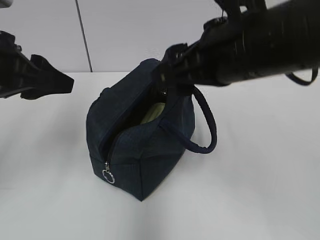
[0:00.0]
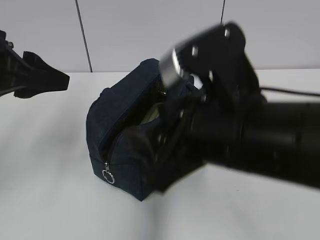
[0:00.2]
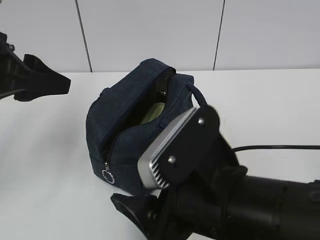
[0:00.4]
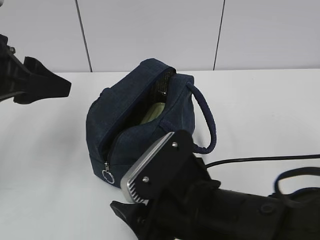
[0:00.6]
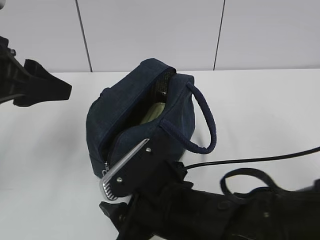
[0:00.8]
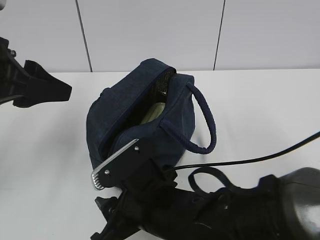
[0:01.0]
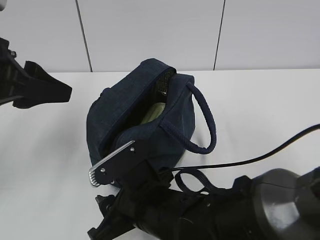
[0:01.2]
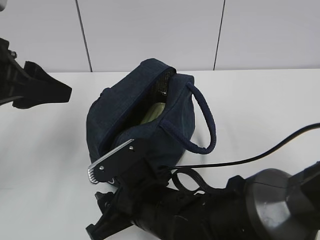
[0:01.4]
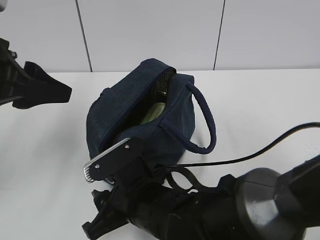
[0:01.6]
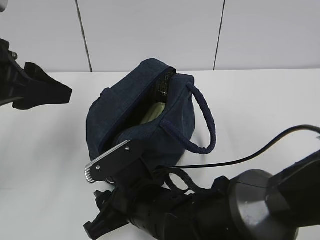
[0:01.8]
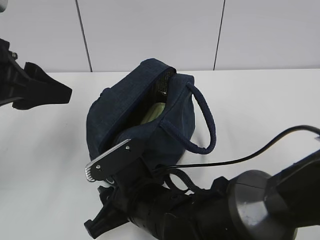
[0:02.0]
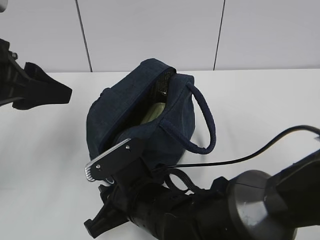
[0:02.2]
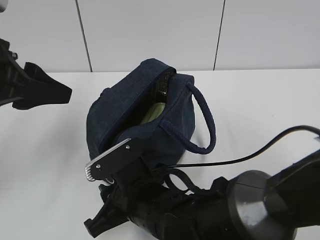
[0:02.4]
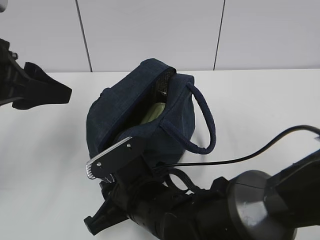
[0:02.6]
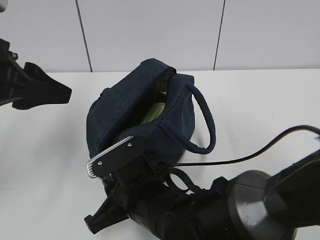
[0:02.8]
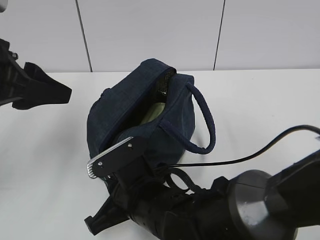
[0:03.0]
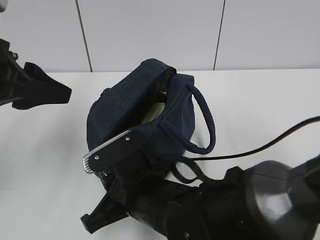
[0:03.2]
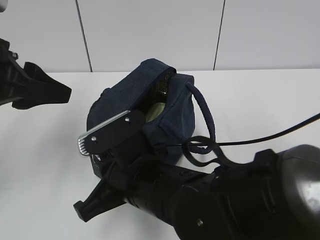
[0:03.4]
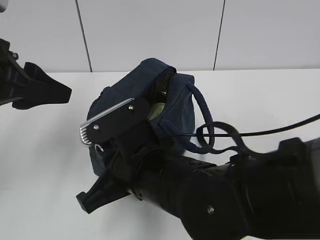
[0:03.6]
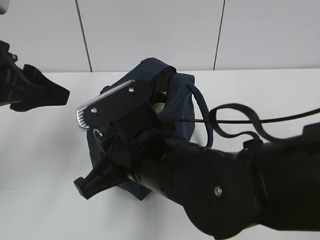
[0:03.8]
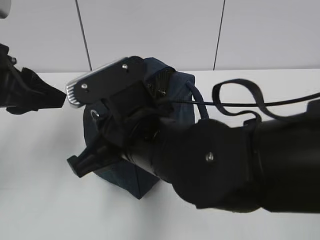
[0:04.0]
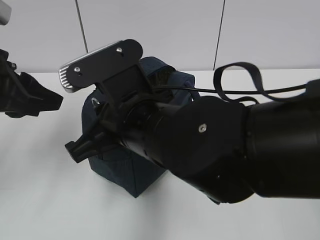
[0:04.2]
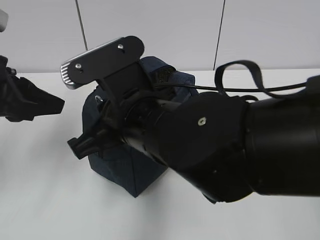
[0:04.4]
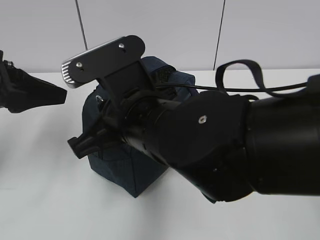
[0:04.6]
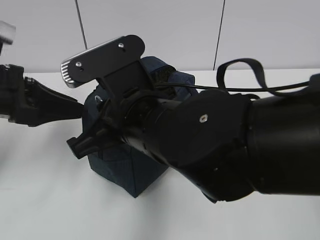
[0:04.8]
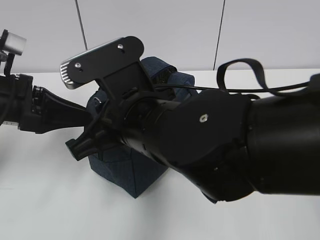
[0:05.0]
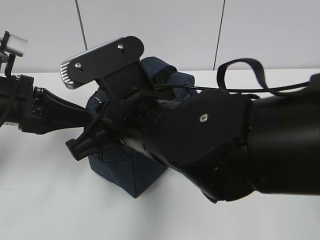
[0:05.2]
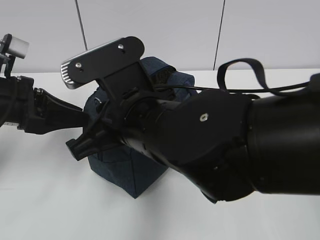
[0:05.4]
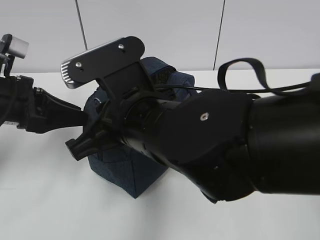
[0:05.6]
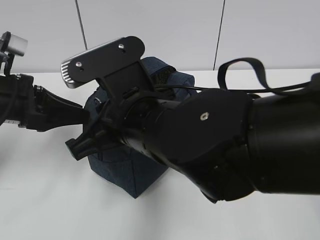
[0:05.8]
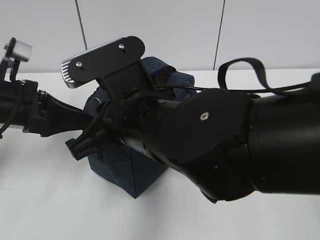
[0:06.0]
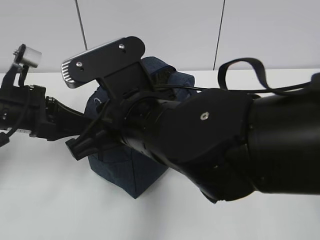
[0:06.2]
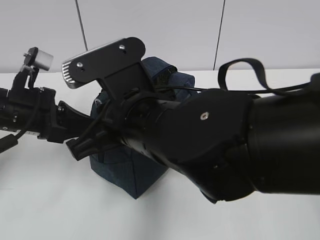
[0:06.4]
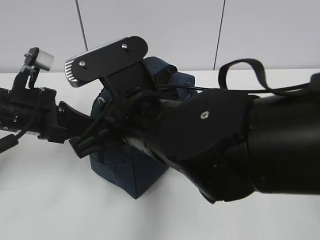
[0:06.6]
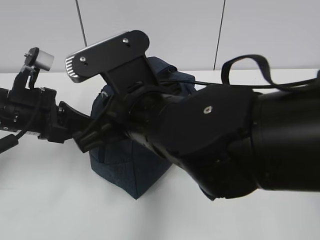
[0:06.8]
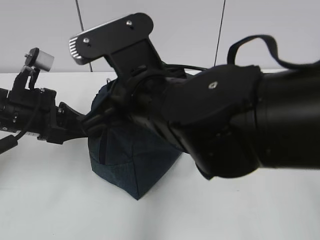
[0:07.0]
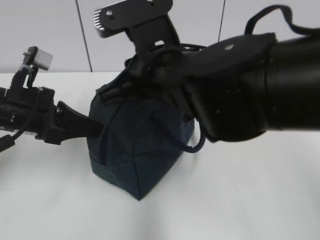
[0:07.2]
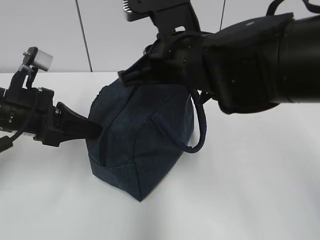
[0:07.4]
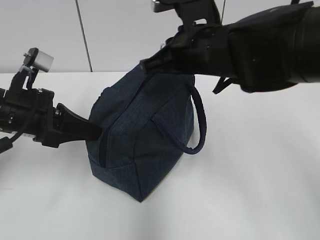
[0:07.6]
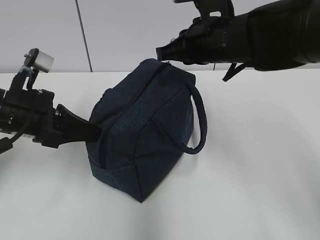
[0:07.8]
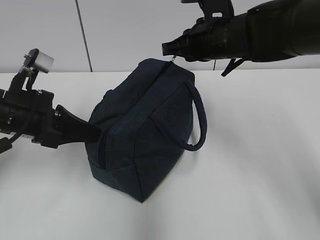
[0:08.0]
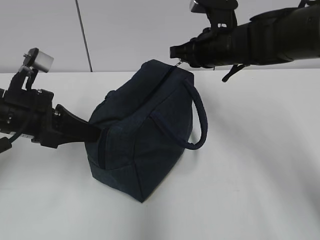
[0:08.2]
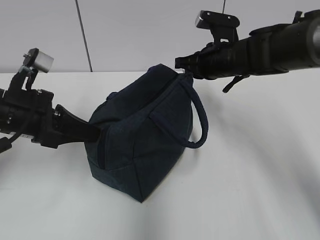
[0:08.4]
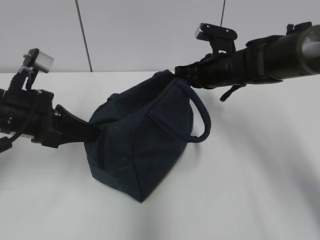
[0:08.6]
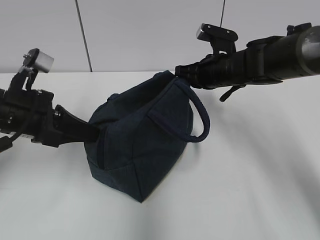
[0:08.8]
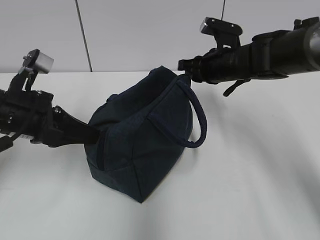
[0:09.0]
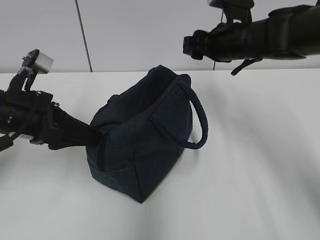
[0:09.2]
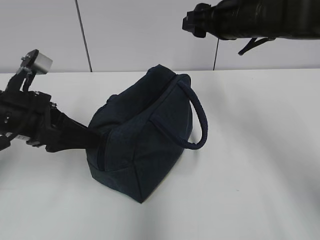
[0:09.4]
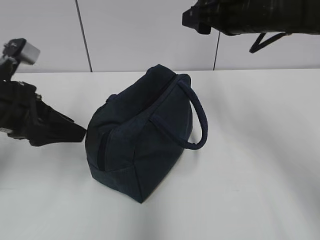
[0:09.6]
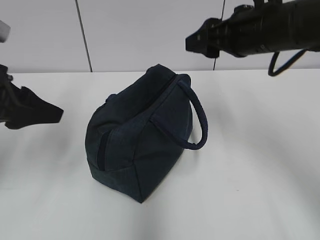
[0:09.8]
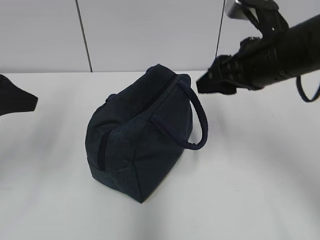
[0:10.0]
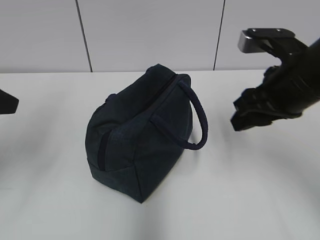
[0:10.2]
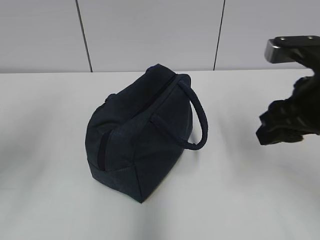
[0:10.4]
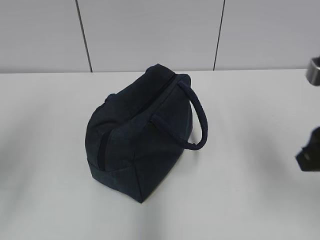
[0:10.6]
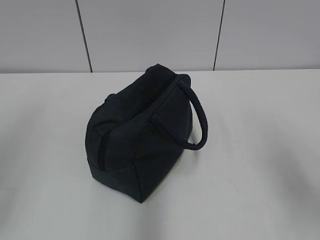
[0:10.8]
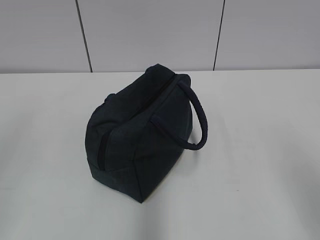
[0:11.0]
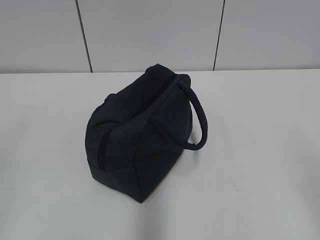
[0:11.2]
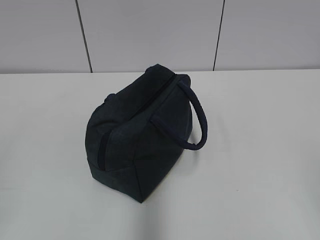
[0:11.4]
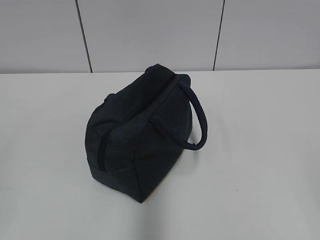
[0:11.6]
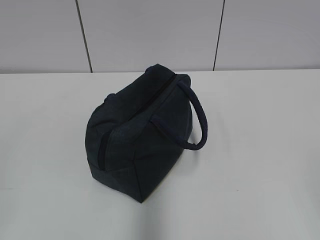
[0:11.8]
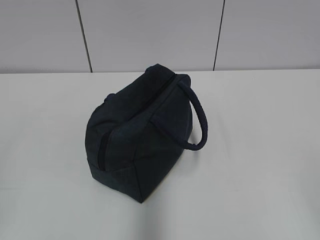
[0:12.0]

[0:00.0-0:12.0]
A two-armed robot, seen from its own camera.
Step, 0:00.0 to 0:06.6: Grab the lunch bag with your left hand.
Step, 0:06.8 to 0:08.8: Pull the zipper with your right hand.
0:00.0 to 0:01.6: The right gripper travels downward and to the left by about 25 cm.
0:01.6 to 0:03.0: The right gripper closes up.
0:03.0 to 0:04.4: The right gripper shifts some 15 cm upward.
0:04.4 to 0:06.0: The left gripper is displaced downward by some 5 cm.
0:06.0 to 0:07.6: The left gripper closes, while the right gripper heads forward and to the right, covering approximately 15 cm.
0:07.6 to 0:09.0: The left gripper opens, while the right gripper heads forward, downward and to the right, covering roughly 15 cm, and opens up.
0:09.0 to 0:10.4: The left gripper travels upward, backward and to the left by some 15 cm, and opens up; the right gripper travels backward by about 20 cm.
0:10.4 to 0:12.0: The grippers both shift backward by approximately 20 cm.

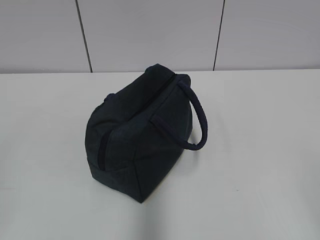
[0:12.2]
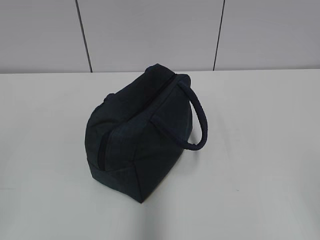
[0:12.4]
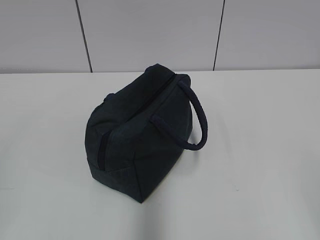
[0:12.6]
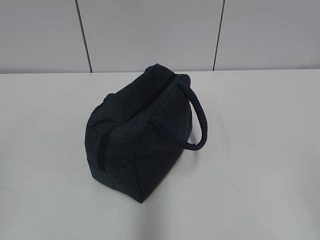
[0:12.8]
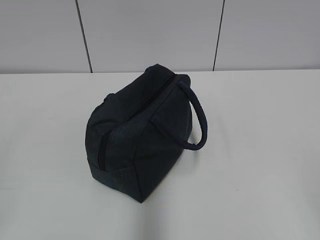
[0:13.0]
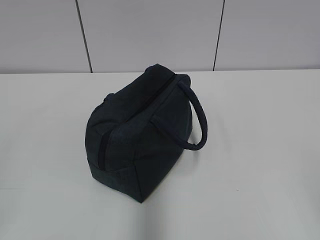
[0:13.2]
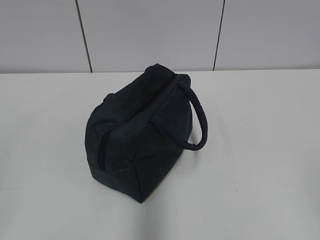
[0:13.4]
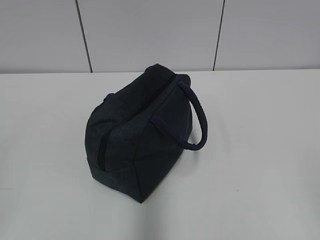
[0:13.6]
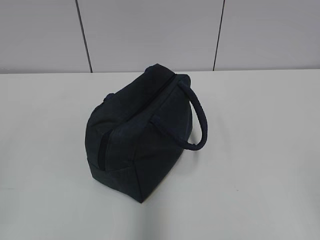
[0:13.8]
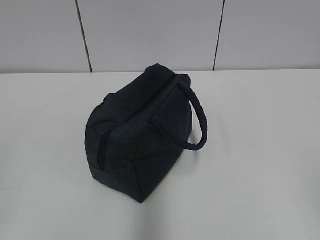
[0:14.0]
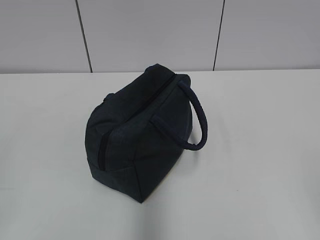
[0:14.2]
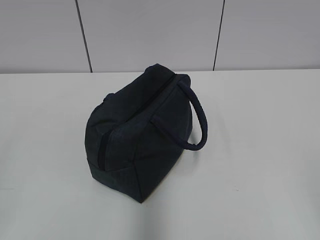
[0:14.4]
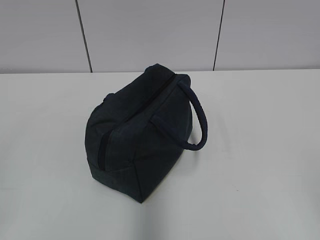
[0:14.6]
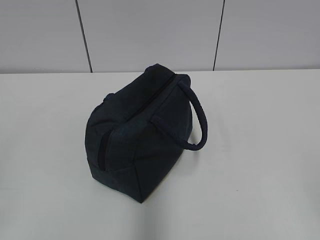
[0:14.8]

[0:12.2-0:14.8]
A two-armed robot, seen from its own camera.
0:13.4 to 0:14.8: Neither gripper changes place.

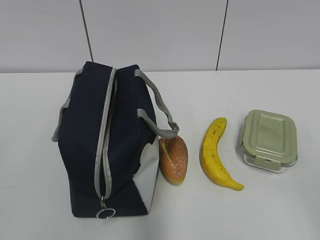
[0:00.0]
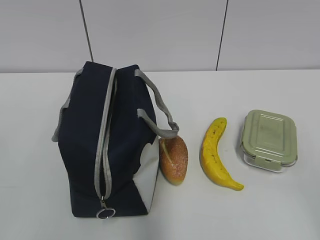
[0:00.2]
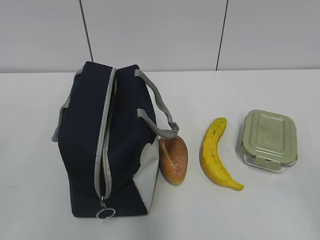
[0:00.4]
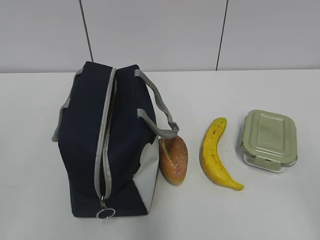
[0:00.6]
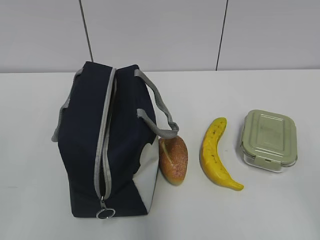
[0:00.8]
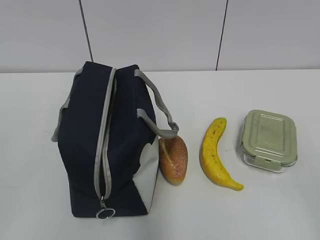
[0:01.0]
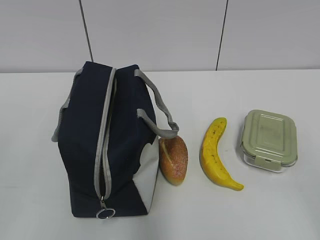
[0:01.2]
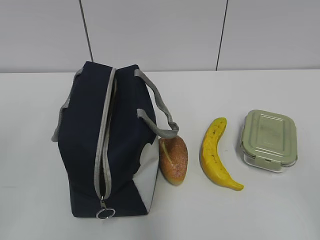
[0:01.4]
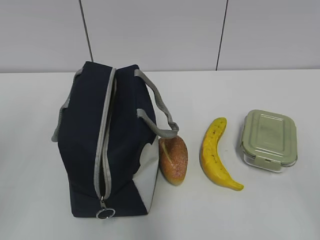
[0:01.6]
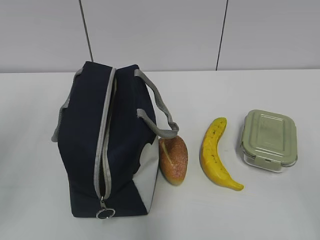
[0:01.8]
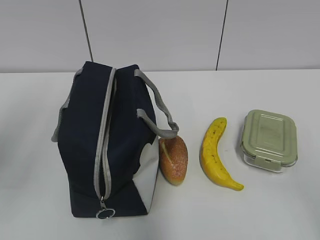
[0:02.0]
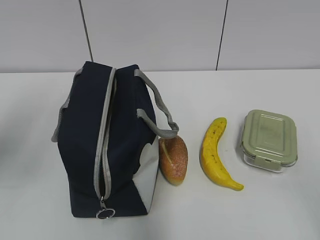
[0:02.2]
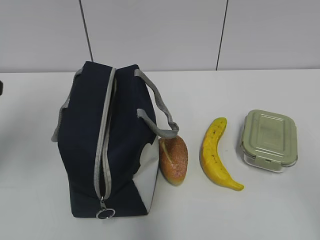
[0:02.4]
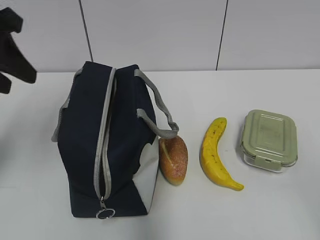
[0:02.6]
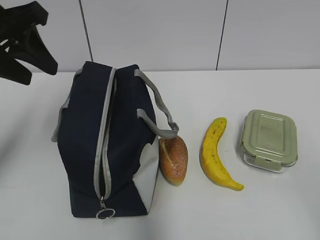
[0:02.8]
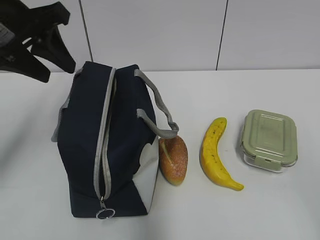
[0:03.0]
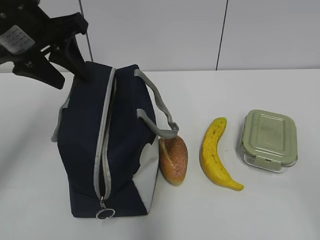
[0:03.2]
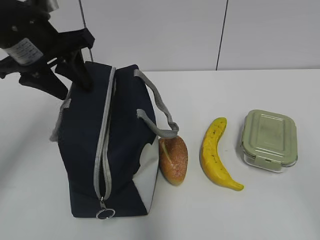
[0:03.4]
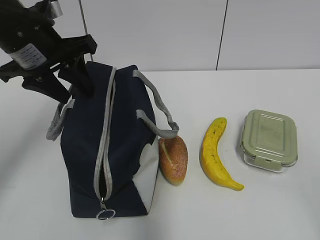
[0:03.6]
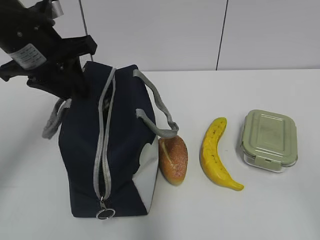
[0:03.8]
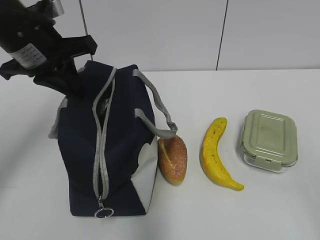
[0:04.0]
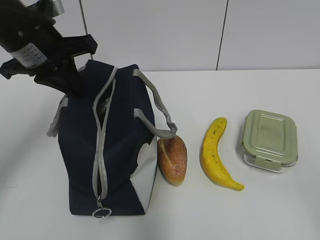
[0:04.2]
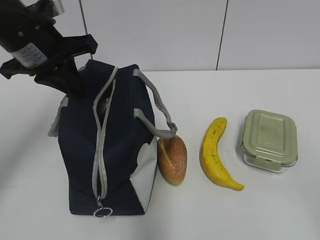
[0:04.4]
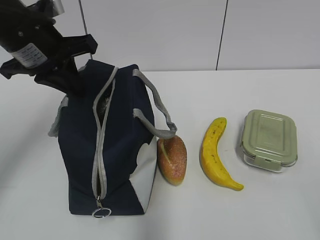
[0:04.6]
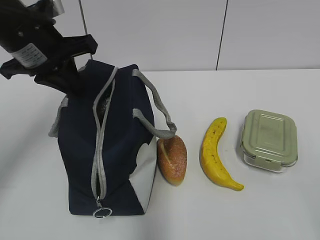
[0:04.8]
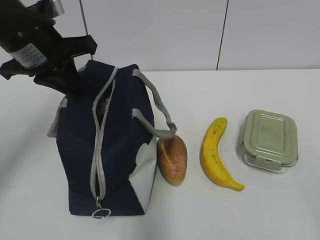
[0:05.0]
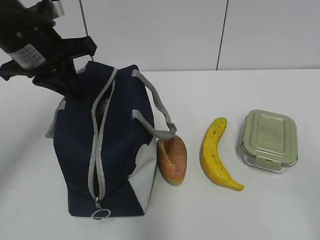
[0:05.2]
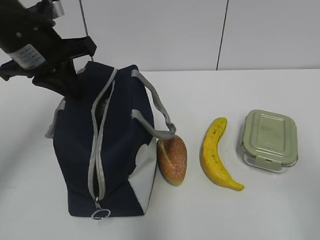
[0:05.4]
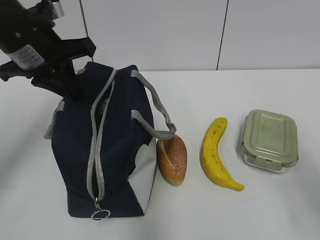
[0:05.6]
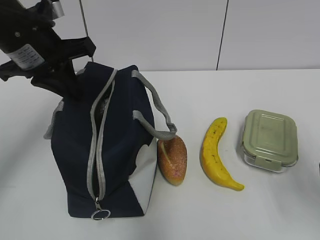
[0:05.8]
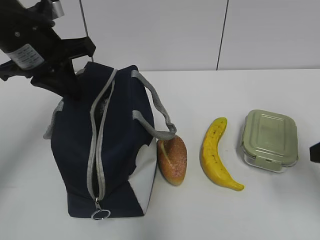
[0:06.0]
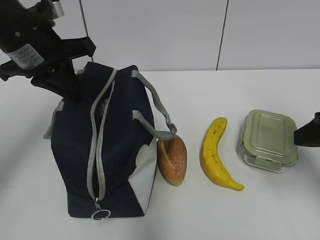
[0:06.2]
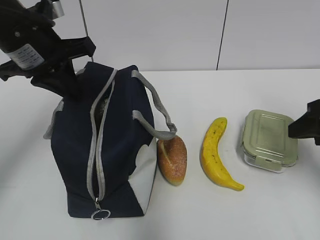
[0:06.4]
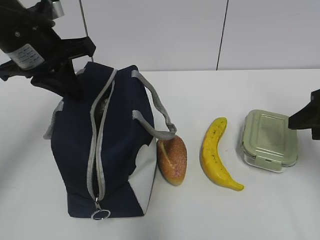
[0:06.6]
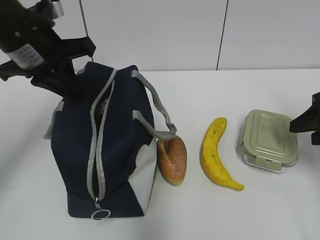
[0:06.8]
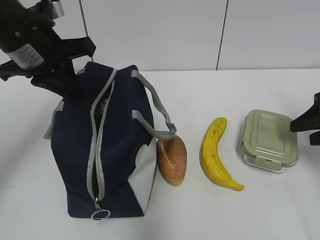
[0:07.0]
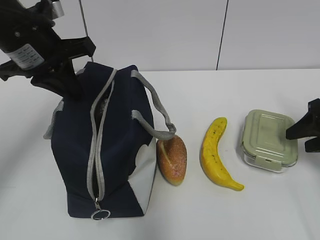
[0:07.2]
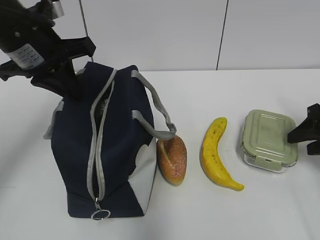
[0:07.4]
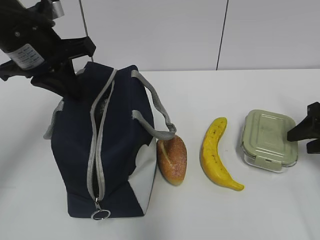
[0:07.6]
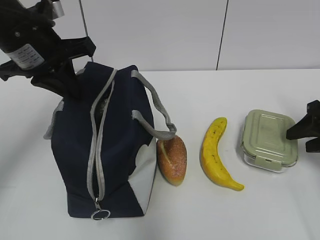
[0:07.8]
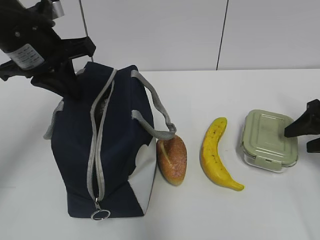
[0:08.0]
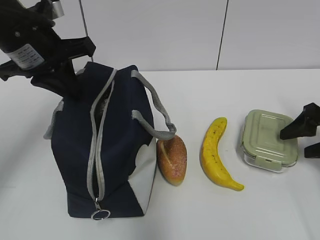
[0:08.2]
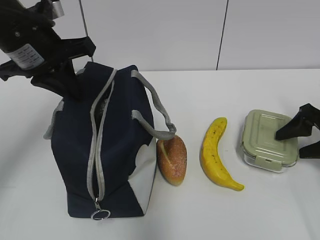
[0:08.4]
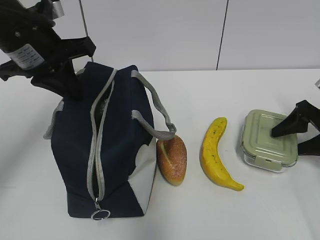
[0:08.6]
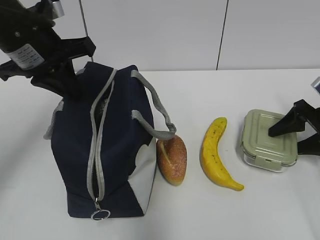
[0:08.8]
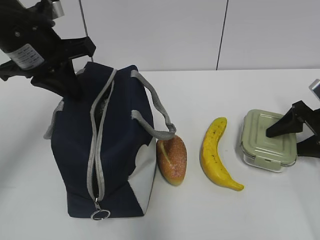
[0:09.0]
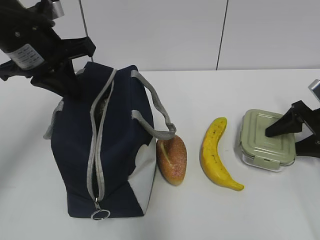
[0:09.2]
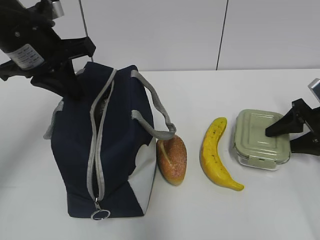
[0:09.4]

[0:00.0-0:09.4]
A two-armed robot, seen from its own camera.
0:01.6 to 0:03.2: The left gripper travels forward and to the right by about 25 cm.
0:03.2 to 0:04.8: The left gripper closes up.
0:04.8 to 0:06.2: The right gripper is displaced forward by roughly 20 cm.
0:06.2 to 0:07.8: The right gripper travels forward, downward and to the right by roughly 15 cm.
0:07.8 to 0:09.4: The right gripper shifts by approximately 5 cm.
